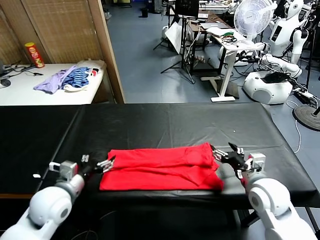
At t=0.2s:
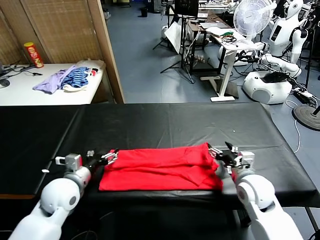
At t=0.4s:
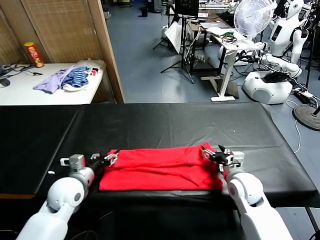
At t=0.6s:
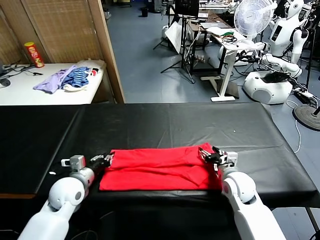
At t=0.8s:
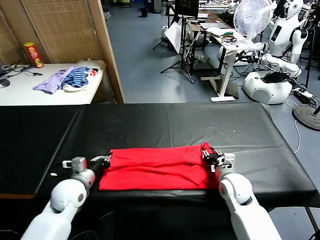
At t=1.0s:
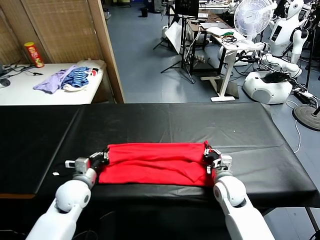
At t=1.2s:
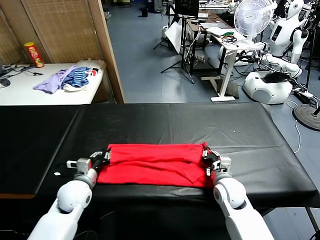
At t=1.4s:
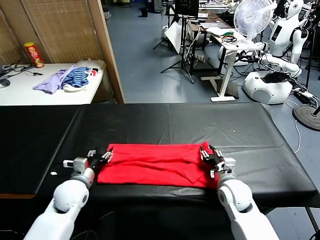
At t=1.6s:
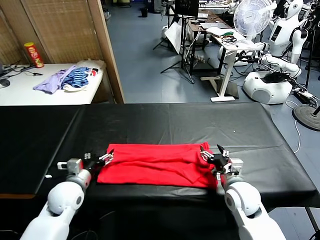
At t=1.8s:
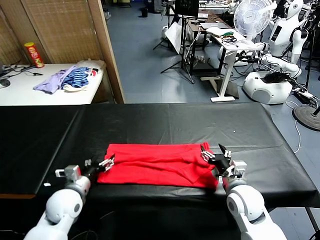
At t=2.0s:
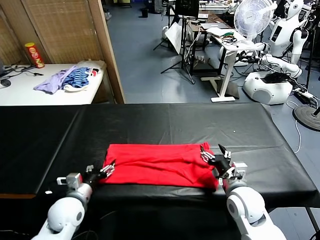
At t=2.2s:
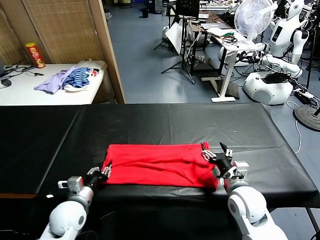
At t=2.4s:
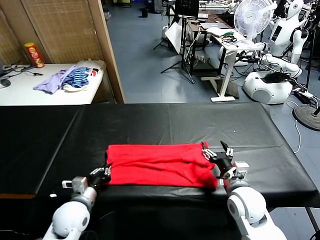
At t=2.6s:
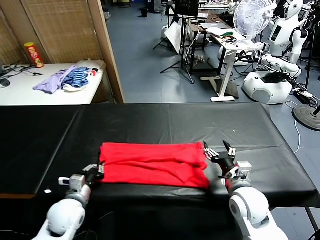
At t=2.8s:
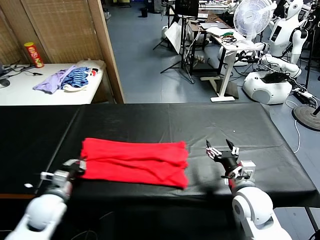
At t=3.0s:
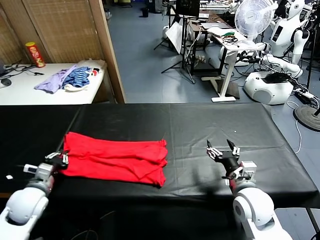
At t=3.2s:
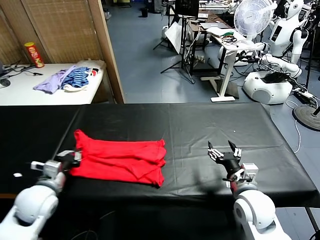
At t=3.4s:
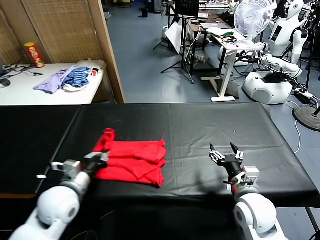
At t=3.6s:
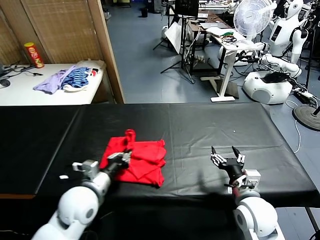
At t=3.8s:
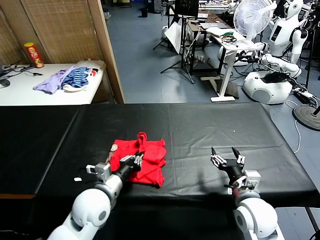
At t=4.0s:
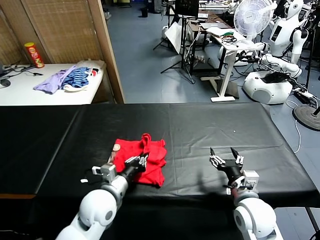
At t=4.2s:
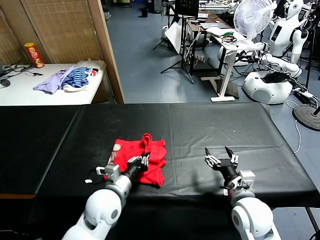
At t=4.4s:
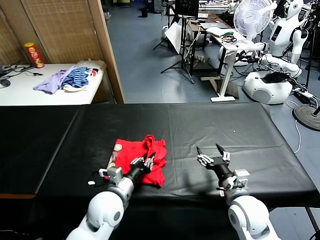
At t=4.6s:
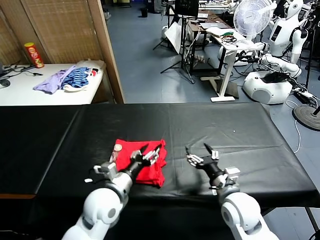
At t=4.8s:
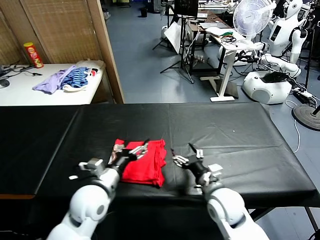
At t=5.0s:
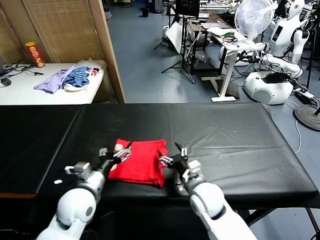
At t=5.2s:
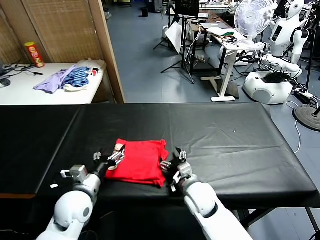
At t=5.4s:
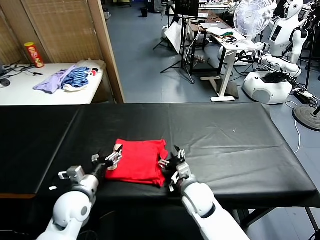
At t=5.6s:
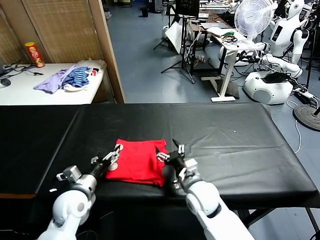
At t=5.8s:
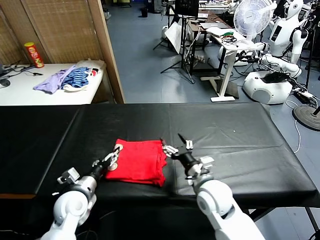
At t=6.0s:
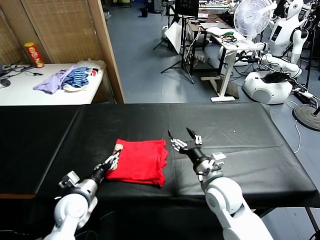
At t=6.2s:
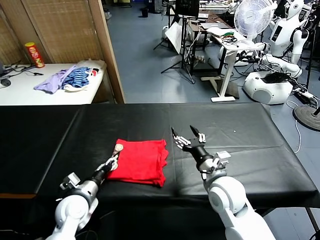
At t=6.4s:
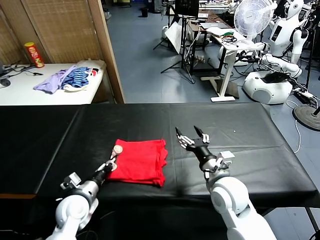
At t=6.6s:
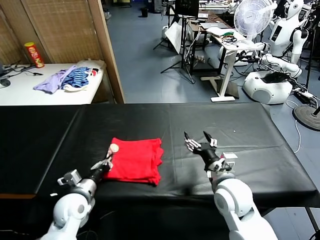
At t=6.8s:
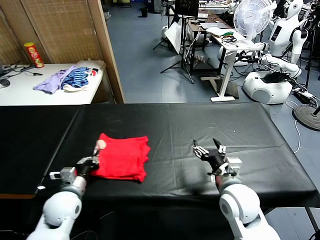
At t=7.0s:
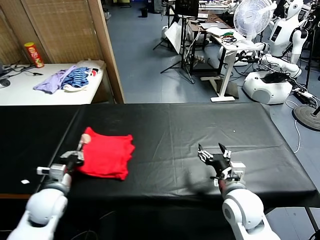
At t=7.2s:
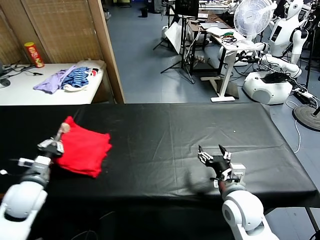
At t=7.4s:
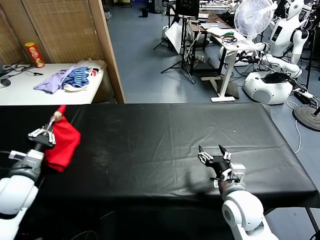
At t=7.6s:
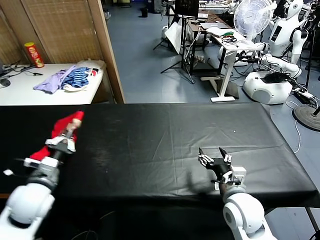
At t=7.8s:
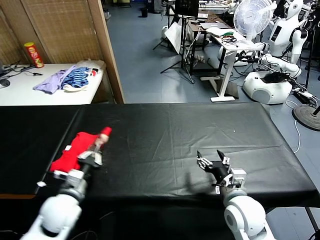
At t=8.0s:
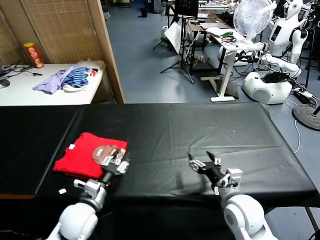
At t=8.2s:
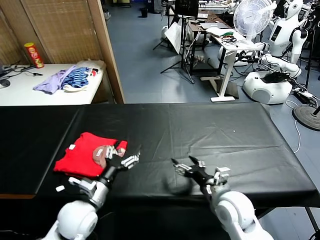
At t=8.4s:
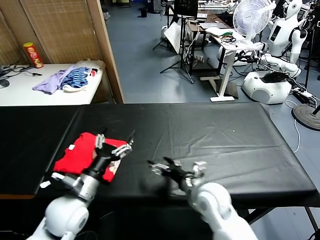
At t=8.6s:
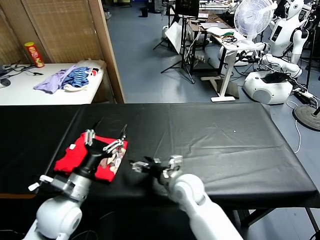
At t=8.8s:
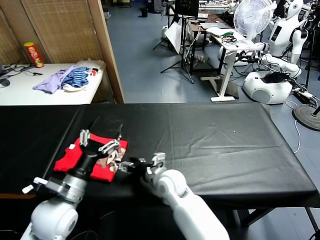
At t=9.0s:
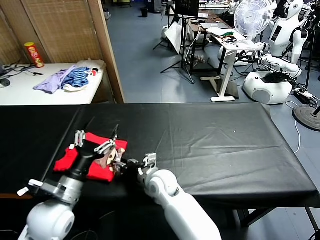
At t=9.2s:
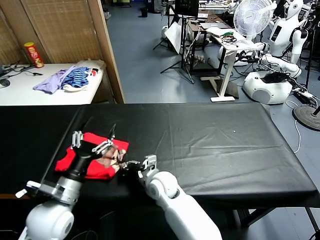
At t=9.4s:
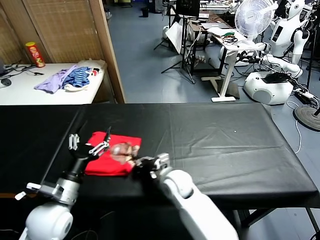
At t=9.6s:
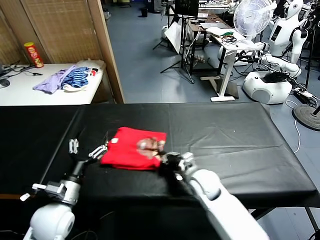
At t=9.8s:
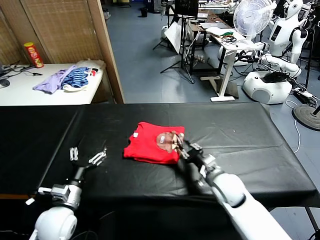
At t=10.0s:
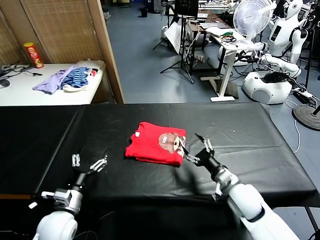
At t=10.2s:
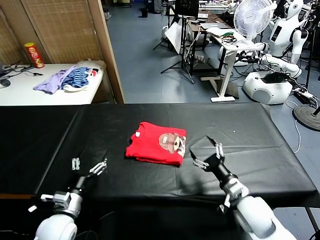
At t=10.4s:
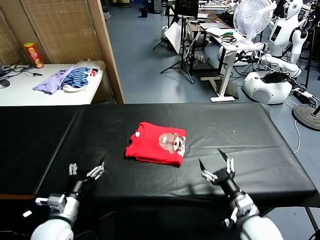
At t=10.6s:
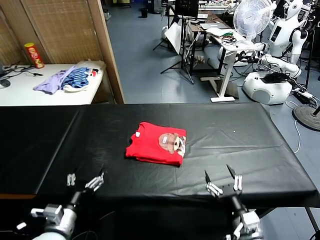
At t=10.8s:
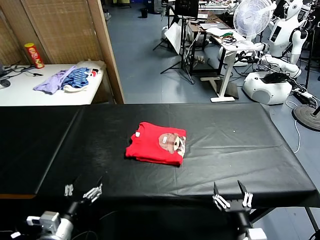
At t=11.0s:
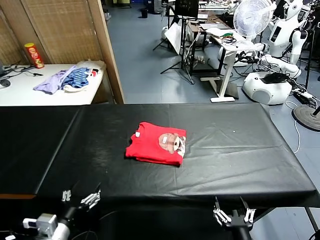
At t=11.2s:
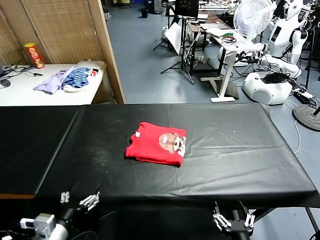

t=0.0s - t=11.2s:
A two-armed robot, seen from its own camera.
Task of the whole recording: fold and organize the clothes.
Step, t=0.0s - t=2.6s: use the left gripper to clamp the left edge of the fabric.
Step, t=2.8s - t=4.6s: use the left gripper to drag the left edge of the fabric to the left and folds it over the right edge.
Step, t=4.8s - t=8.0s: Flip the folded clothes over with left gripper.
Step, t=8.2s - t=10.0s: Drag the clothes to the center of the table.
t=0.0s - t=1.6s: The right gripper closes and opens again; the left gripper heads downward, covering approximately 5 cm, and closes and opens again.
t=1.6s - t=3.2s: The left gripper is displaced upward by about 5 cm, travels to the left and back again, approximately 10 cm each way, and closes.
t=3.2s - t=4.8s: The left gripper is displaced to the right by some 15 cm, and opens up. The right gripper travels to the left by some 10 cm.
t=4.8s - t=6.4s: The left gripper heads downward and to the left, covering approximately 10 cm, and closes up. Meanwhile the right gripper moves roughly 5 cm.
t=6.4s - t=8.0s: The left gripper moves some 10 cm to the left and comes back. Meanwhile the right gripper ends up about 5 cm from where it was.
t=8.0s - t=9.6s: The left gripper changes place by approximately 5 cm, and opens its fingers. The right gripper heads forward, to the left and downward, covering about 15 cm, and closes up.
t=9.6s - t=11.2s: The right gripper travels backward by some 30 cm, and opens its fingers. The left gripper moves backward, roughly 10 cm.

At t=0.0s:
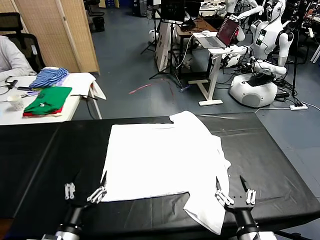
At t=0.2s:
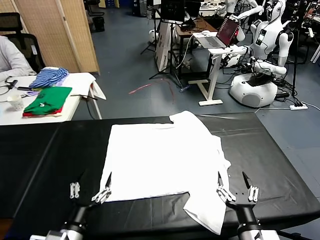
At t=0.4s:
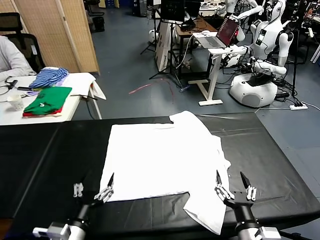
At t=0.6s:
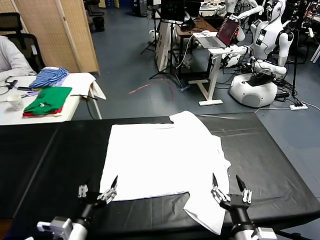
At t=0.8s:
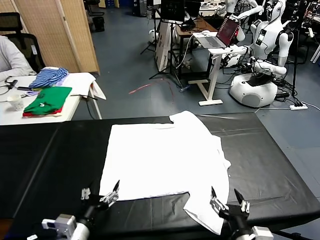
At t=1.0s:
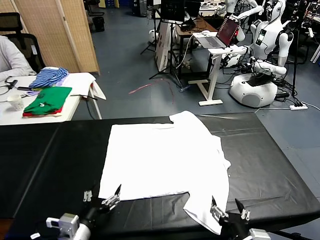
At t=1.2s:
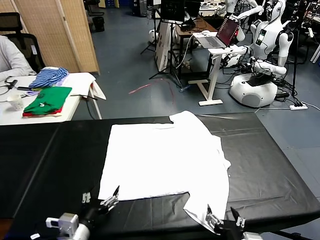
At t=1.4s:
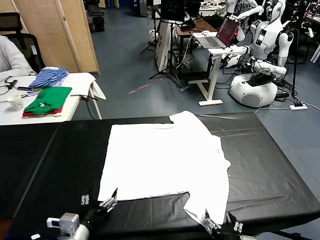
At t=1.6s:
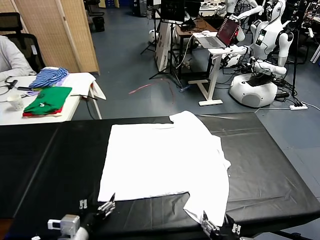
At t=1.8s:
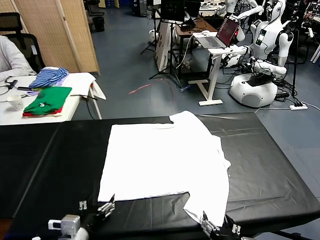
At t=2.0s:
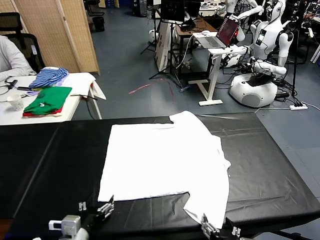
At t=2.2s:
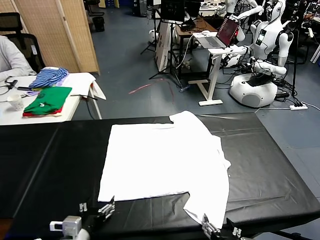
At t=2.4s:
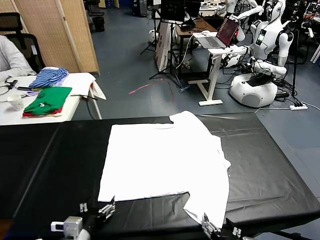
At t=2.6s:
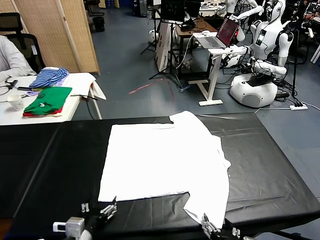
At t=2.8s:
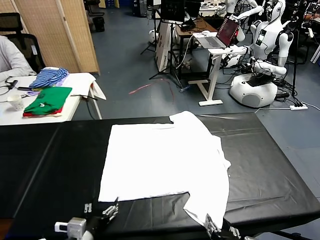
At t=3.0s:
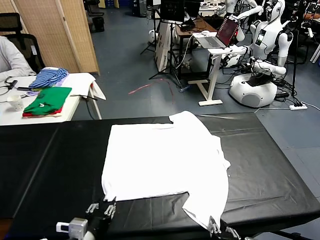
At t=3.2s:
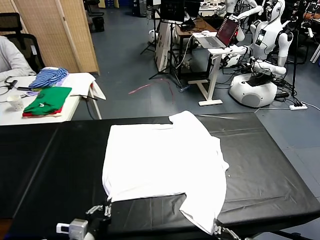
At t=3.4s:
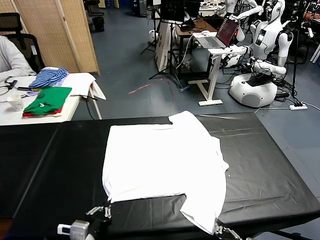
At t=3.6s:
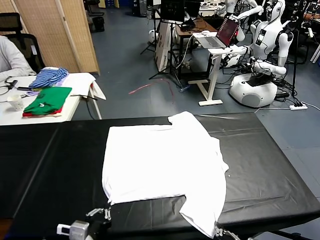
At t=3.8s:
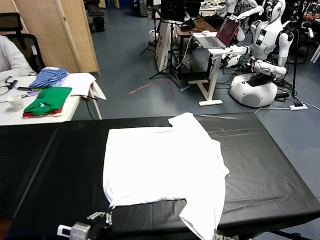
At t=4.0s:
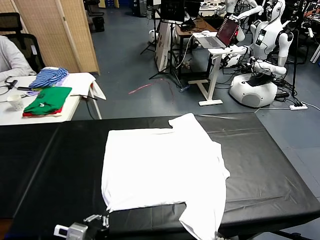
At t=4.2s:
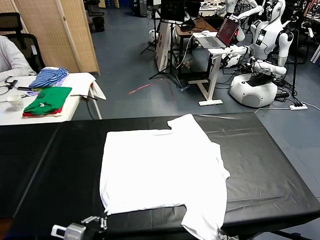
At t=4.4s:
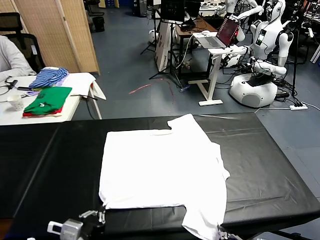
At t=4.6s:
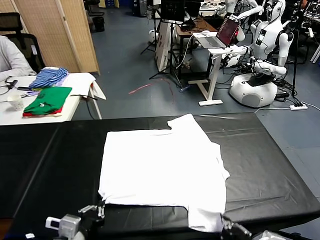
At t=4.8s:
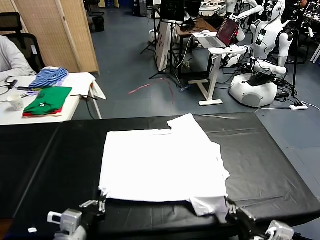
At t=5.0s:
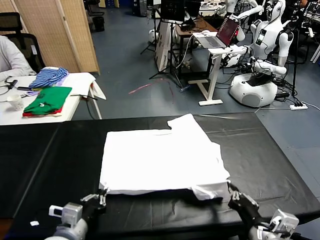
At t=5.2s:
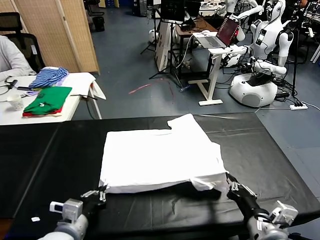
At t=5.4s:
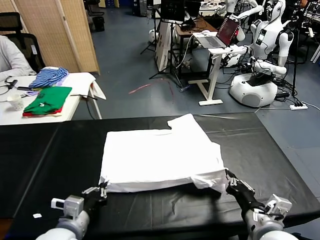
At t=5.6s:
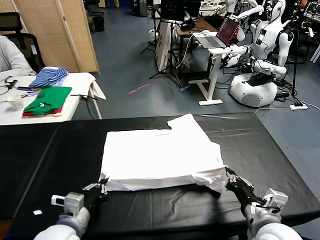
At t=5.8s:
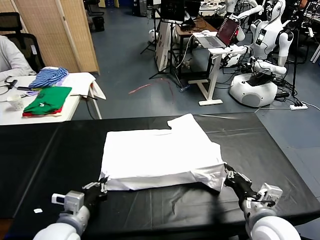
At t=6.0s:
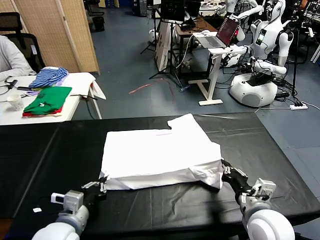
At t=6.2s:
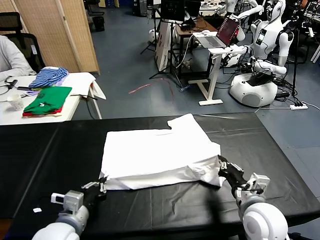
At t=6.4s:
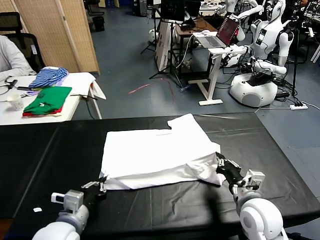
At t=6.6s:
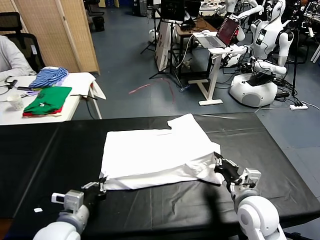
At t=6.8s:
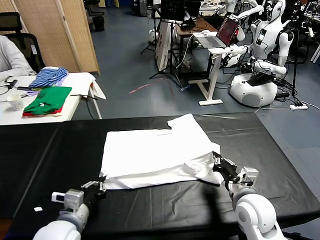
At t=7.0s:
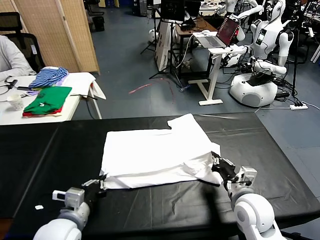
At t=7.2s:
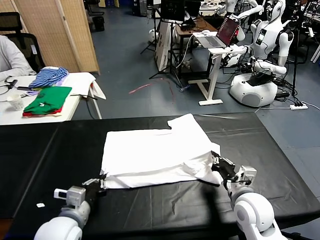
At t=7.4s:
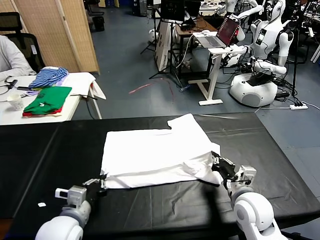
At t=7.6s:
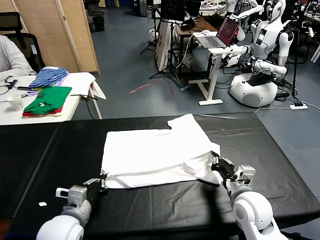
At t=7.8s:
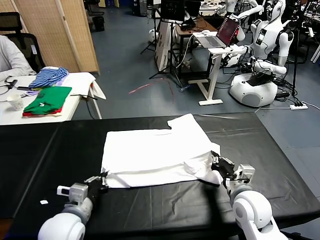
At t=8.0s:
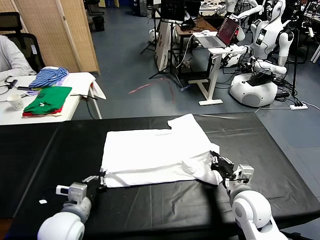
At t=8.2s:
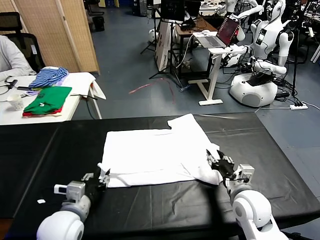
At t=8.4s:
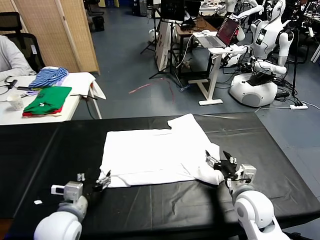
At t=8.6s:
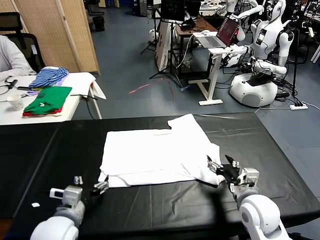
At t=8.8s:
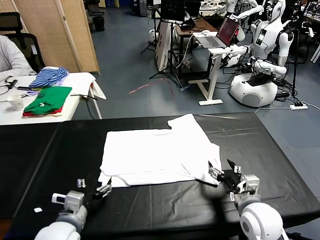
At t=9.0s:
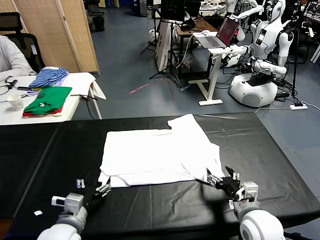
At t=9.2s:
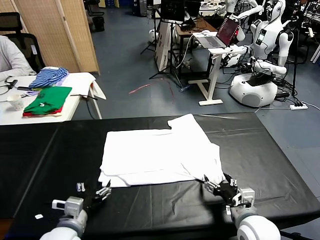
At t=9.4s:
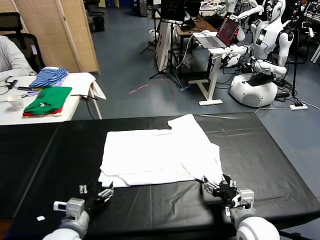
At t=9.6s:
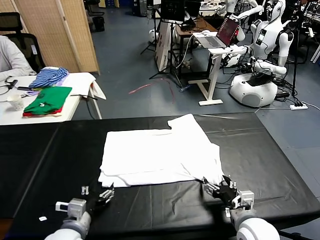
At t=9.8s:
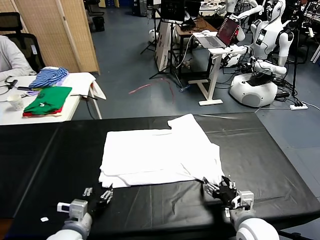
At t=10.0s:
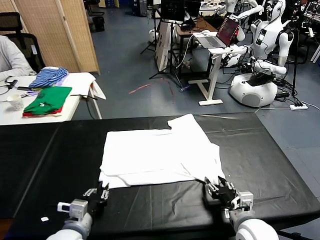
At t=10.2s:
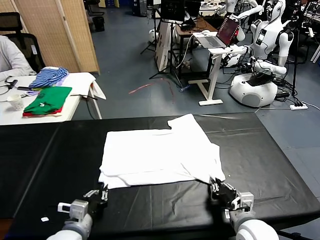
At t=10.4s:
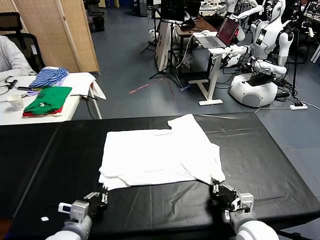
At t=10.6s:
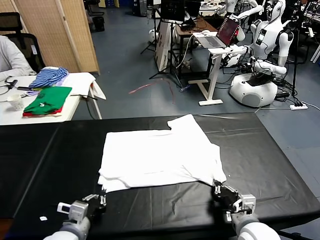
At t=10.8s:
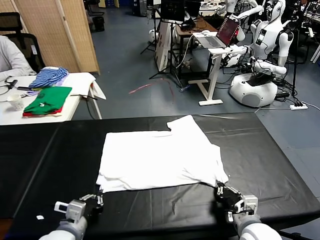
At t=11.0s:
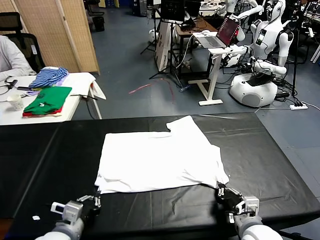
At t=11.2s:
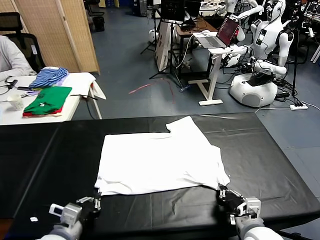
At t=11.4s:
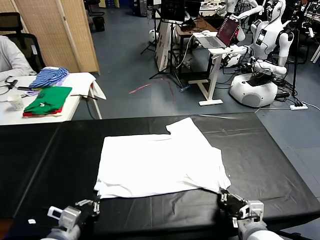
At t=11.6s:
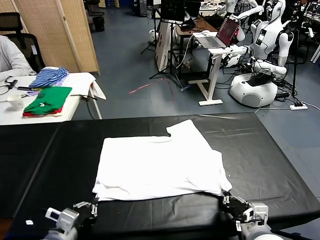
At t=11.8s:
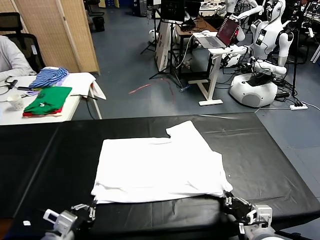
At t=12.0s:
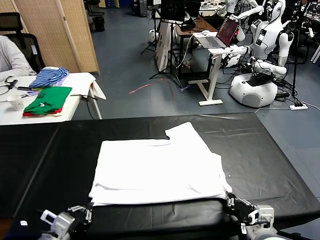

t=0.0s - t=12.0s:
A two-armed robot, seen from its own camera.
Task of the whole recording: fold and organize the clothes.
Step, t=0.0s - t=3.2s: use both grippers simultaneously to clamp the lower edge of the clothing fabric.
Step, t=3.6s - t=8.2s: use both grippers to drag the lower edge of the fabric forward and fold it over the upper edge.
t=1.6s - t=3.0s: The right gripper closes up, while the left gripper closes up.
t=3.0s - t=4.4s: Both grippers travel together upward, some 5 cm.
t=4.4s - t=6.0s: The left gripper moves forward, some 5 cm, while the right gripper travels forward by some 15 cm.
t=6.0s - t=7.6s: The right gripper changes place by about 5 cm.
t=7.6s - t=9.0s: The left gripper opens; the right gripper moves backward, some 5 cm, and opens up.
t=9.0s - t=10.4s: The right gripper closes its fingers. Meanwhile the left gripper closes.
t=10.4s - t=12.0s: The left gripper changes place by roughly 5 cm; the right gripper ends up roughly 5 cm from where it was.
